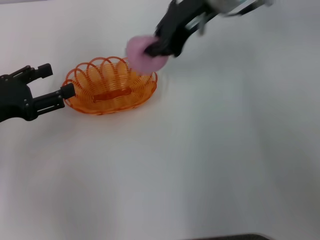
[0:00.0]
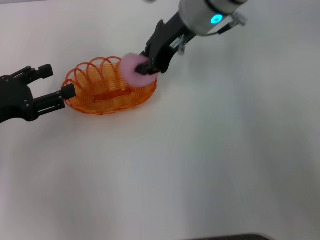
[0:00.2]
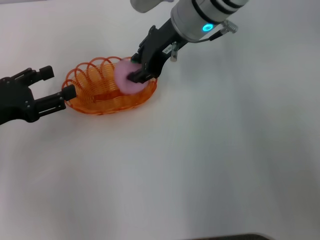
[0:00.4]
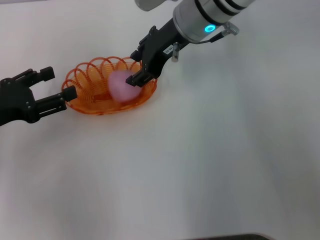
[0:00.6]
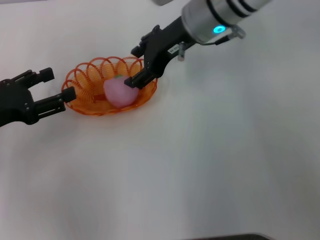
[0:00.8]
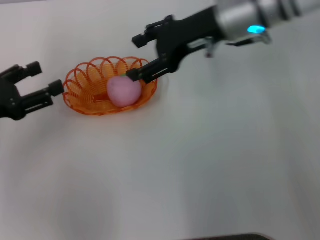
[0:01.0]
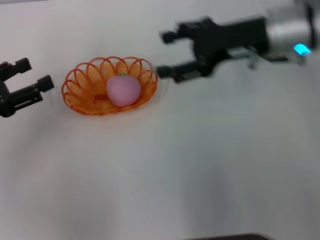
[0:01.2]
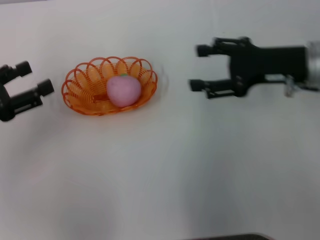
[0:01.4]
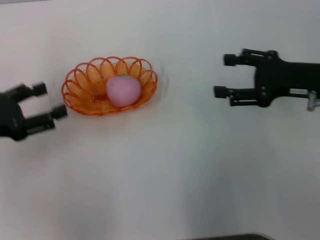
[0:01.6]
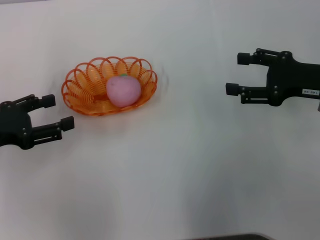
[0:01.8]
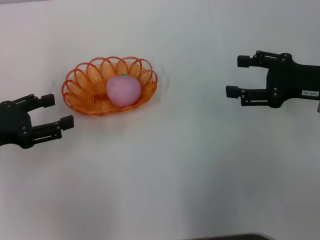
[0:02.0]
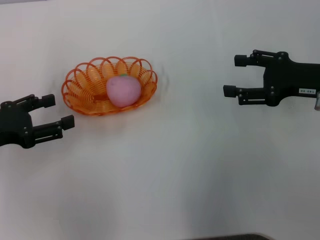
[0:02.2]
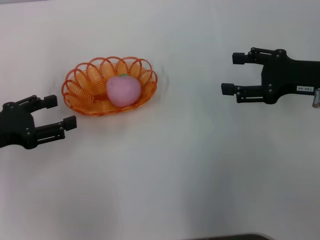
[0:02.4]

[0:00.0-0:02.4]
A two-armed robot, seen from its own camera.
Step, 0:00.0 to 0:00.8: Place the peach into the basket with the right gripper.
0:00.0 to 0:01.2: The right gripper travels to the right, downward and backward by approximately 15 cm, and opens up.
0:01.2 to 0:02.4: The right gripper travels to the right and backward by some 10 cm.

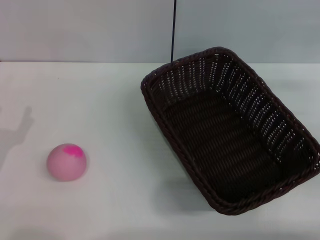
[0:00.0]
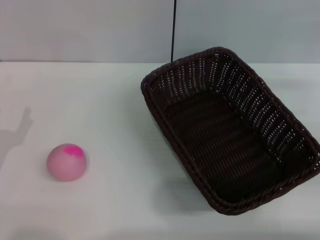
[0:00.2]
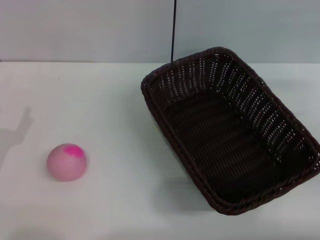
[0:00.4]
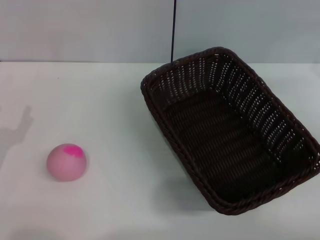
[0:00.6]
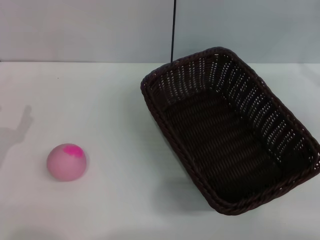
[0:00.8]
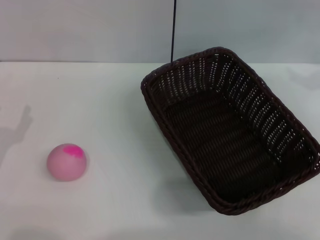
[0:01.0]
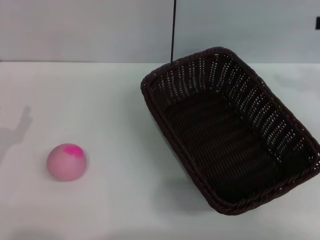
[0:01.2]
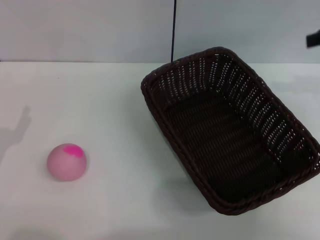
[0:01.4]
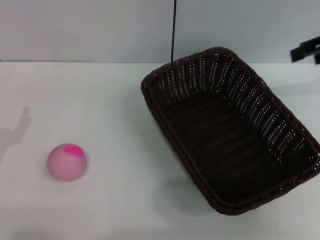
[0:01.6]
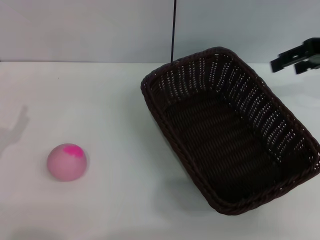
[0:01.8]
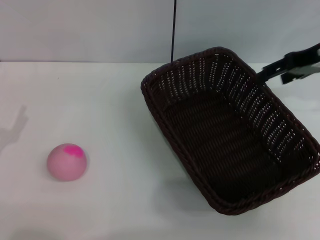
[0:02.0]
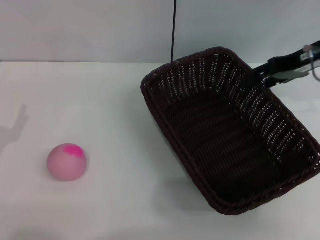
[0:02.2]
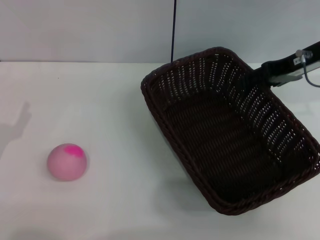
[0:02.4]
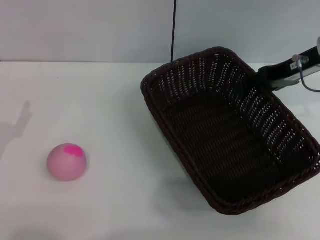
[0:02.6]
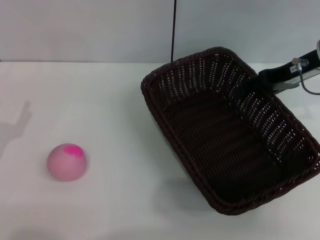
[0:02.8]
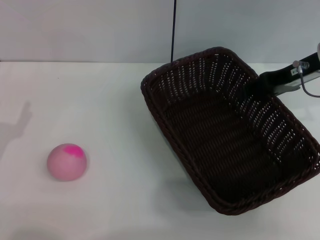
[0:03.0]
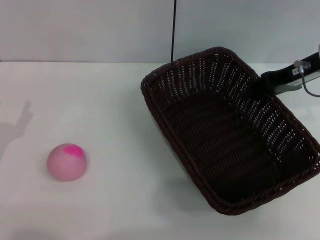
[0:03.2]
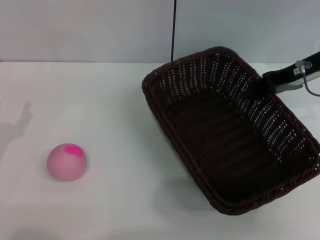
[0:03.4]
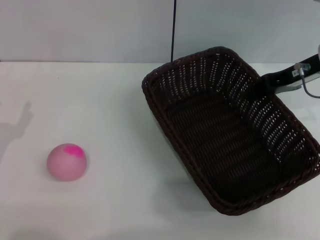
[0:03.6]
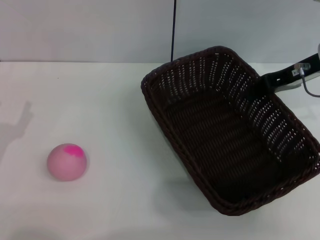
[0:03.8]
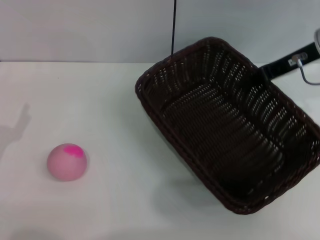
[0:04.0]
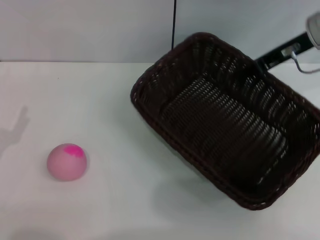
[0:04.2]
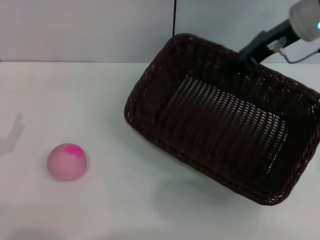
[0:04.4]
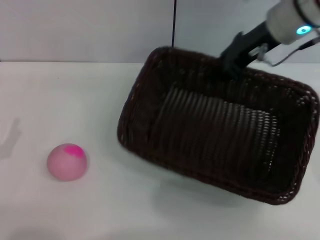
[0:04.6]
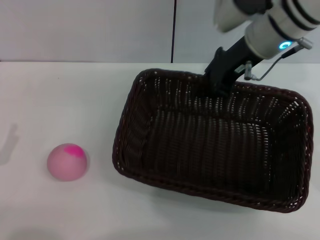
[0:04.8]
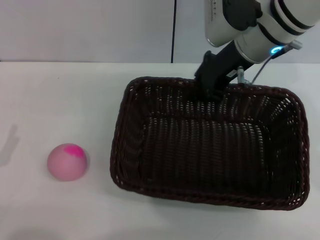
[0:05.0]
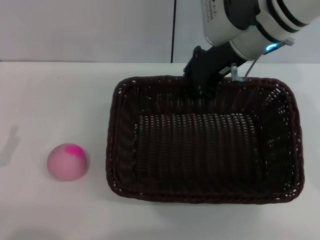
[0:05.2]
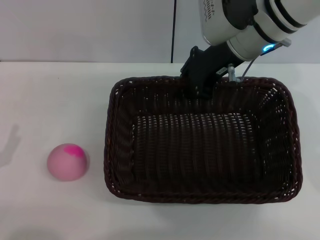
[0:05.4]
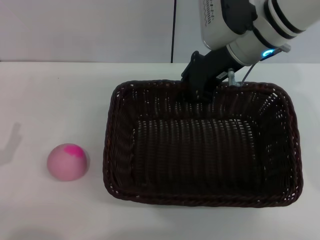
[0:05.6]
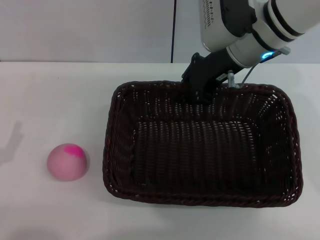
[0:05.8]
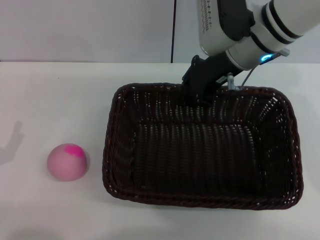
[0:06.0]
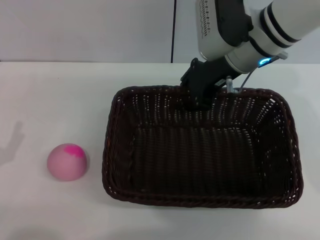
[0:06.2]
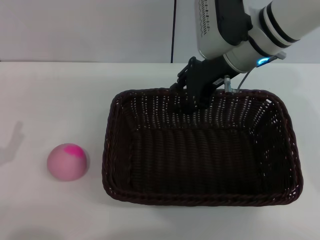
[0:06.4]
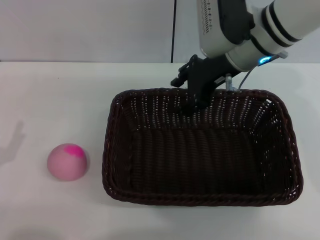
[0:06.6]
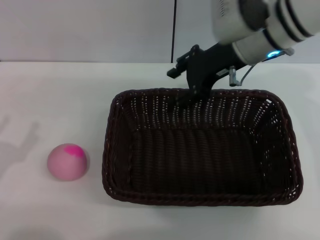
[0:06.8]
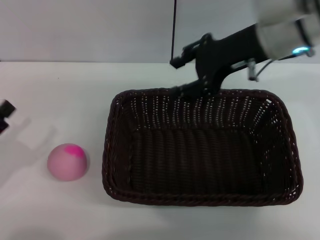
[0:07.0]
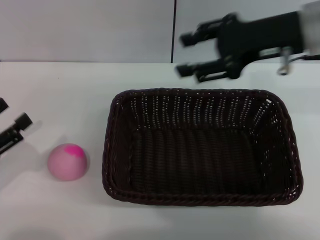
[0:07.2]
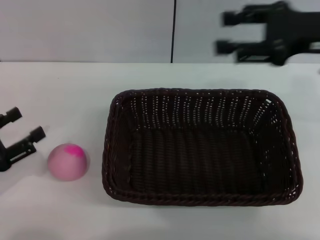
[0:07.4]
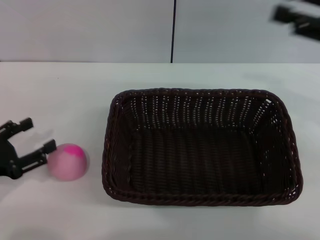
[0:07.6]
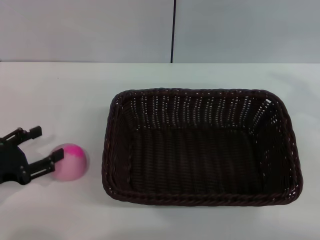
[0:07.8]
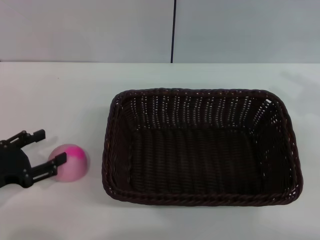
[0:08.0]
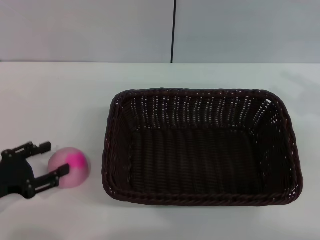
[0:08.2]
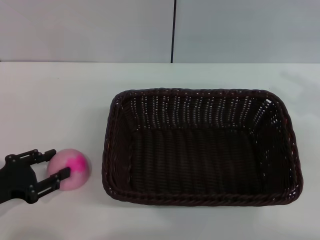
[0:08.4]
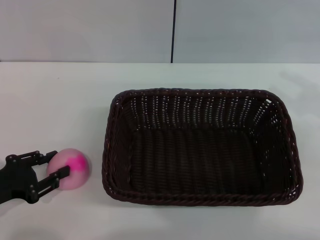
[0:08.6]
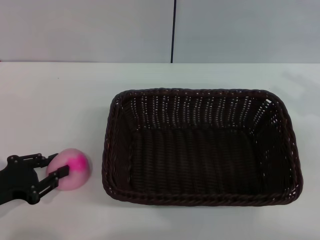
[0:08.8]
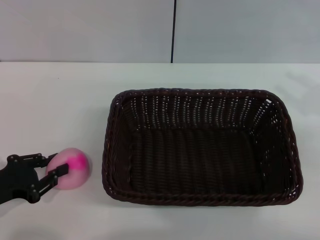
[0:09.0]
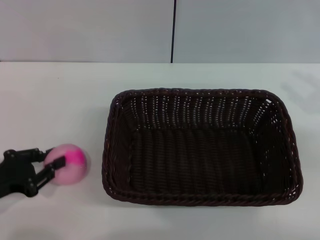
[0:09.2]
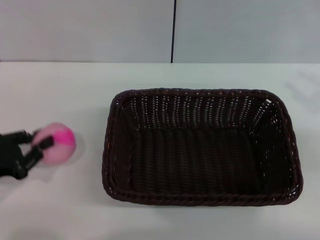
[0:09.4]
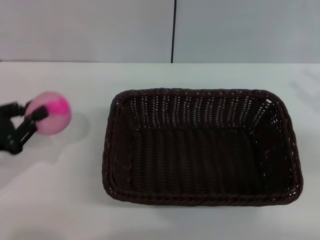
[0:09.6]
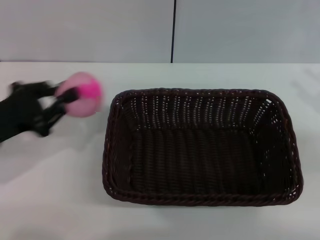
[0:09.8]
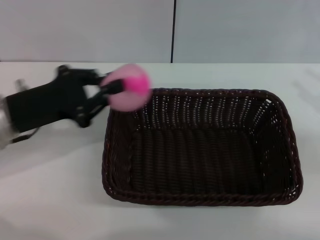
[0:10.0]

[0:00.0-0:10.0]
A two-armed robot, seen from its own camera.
Step, 0:00.0 to 0:04.2: Pick up the dark basket with the right gripper.
Step, 0:04.4 to 0:07.2: Place the dark basket in the center of view with the right gripper.
Step, 0:07.4 to 0:09.6: Pick up the peach with the left gripper.
0:00.0 to 0:01.4: The right gripper travels upward by some 15 cm.
0:01.4 to 0:02.8: The right gripper goes about 15 cm downward and to the left.
0:02.8 to 0:04.2: The right gripper closes its fingers.
0:04.2 to 0:05.8: The right gripper shifts some 10 cm to the left.
0:05.8 to 0:07.2: The right gripper travels to the right and backward by some 10 cm, and opens up.
0:07.2 to 0:08.6: The right gripper heads to the right and backward, covering some 15 cm, while the left gripper closes.
0:08.6 to 0:10.0: The left gripper moves forward, upward and to the right, some 15 cm, and closes up.

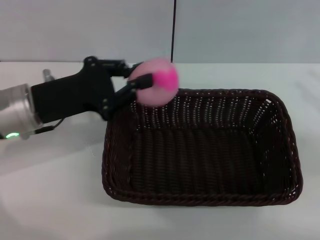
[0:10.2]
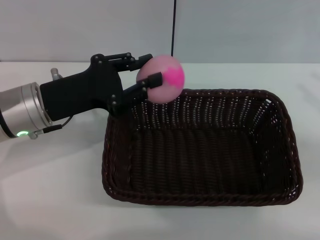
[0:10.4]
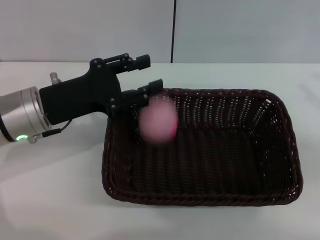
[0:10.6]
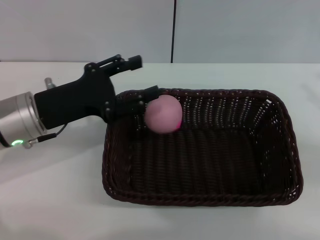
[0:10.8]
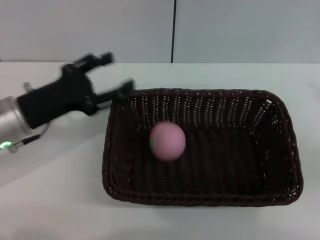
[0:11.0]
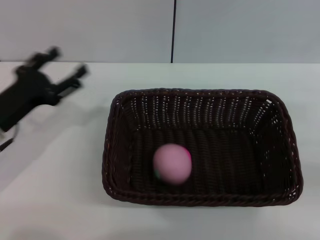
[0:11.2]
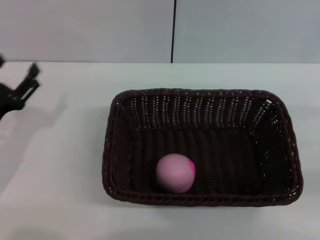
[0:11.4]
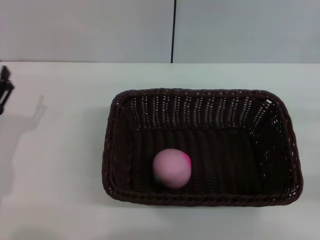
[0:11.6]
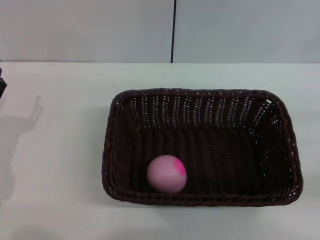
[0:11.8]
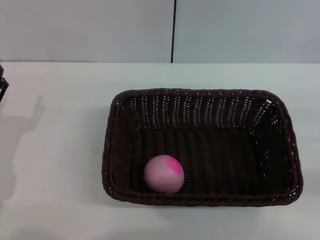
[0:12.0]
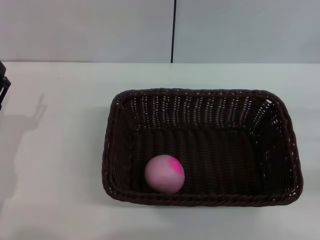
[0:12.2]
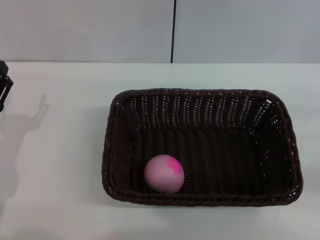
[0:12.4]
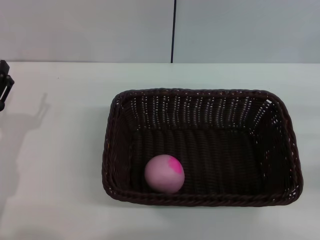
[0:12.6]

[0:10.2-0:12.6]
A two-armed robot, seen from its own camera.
Step, 0:10.2 to 0:11.0: Place the peach into the basket with the left gripper.
0:10.2 to 0:11.4: The right gripper travels downward by approximately 5 cm. The left gripper goes some 15 cm downward, to the left and backward, and opens up.
